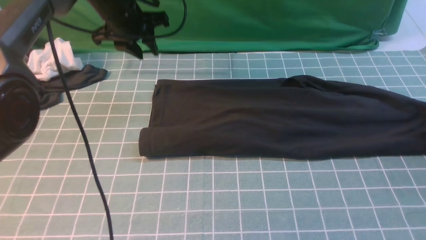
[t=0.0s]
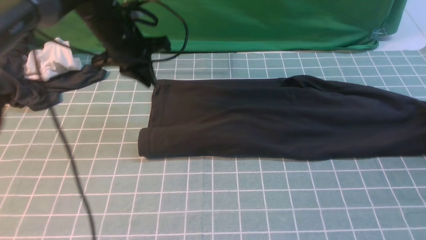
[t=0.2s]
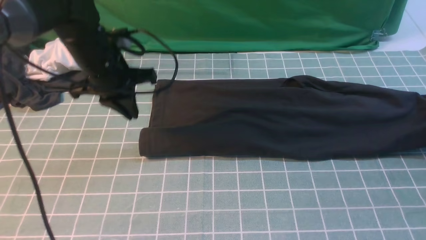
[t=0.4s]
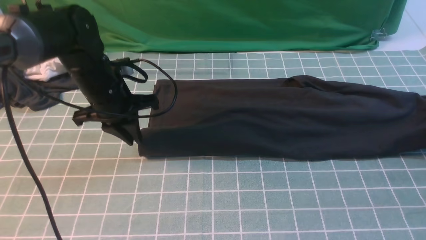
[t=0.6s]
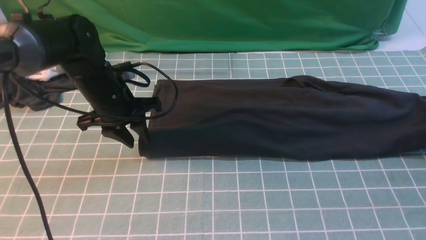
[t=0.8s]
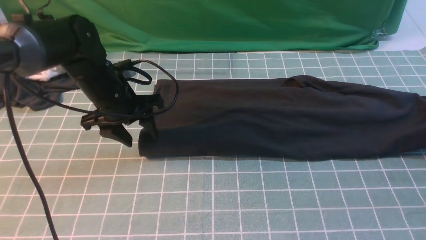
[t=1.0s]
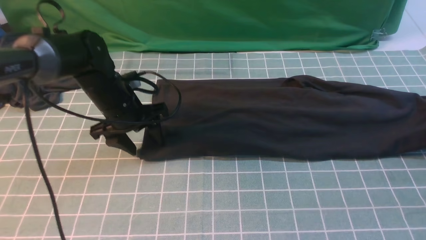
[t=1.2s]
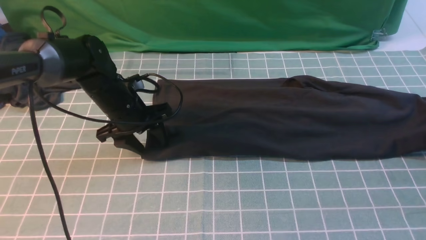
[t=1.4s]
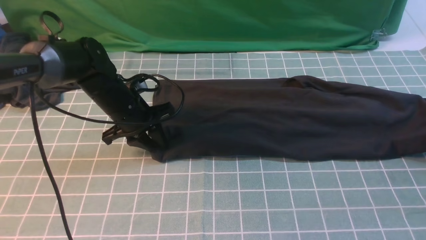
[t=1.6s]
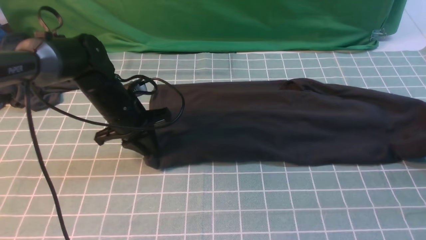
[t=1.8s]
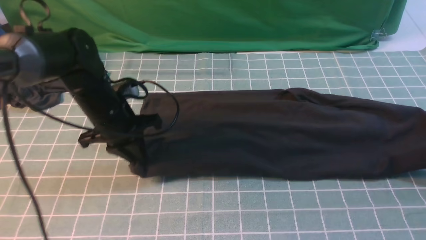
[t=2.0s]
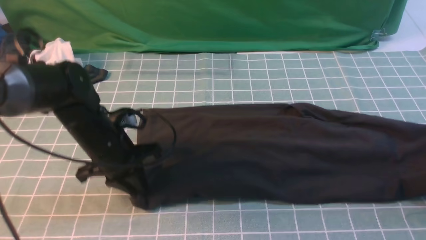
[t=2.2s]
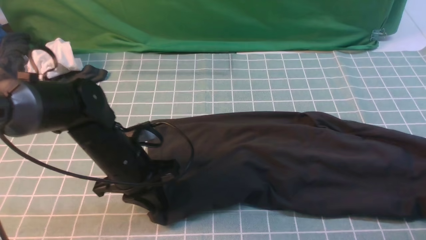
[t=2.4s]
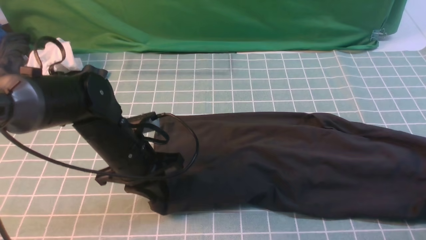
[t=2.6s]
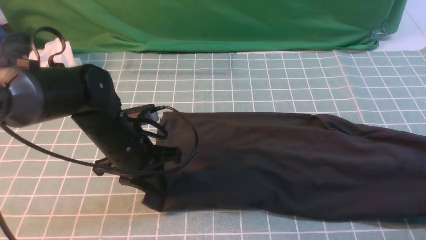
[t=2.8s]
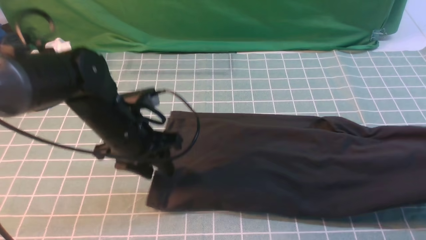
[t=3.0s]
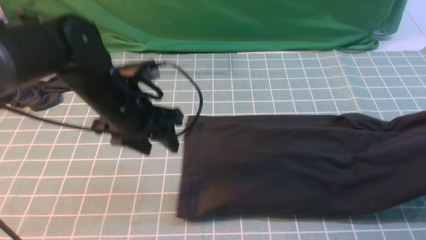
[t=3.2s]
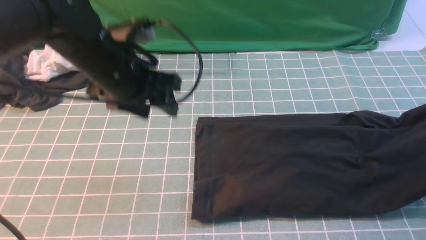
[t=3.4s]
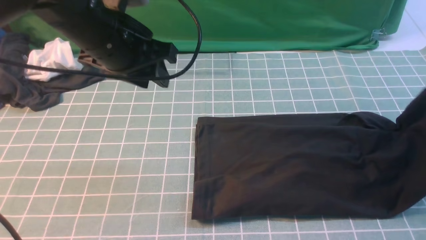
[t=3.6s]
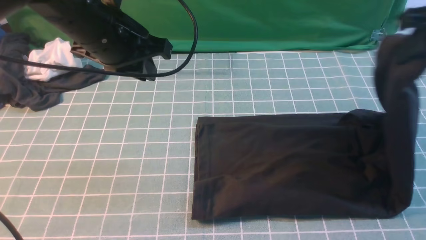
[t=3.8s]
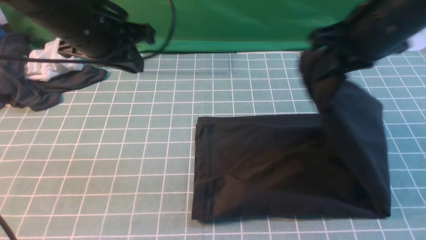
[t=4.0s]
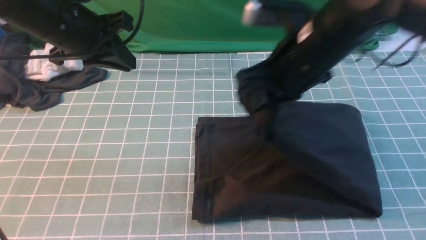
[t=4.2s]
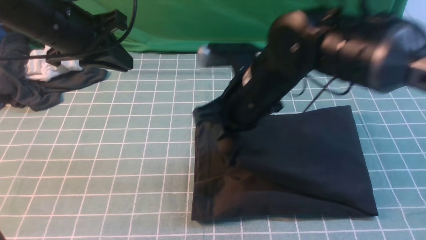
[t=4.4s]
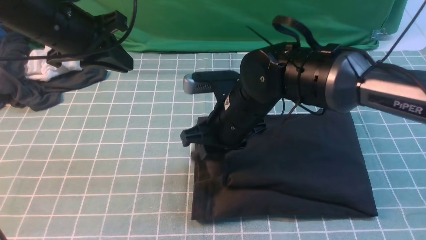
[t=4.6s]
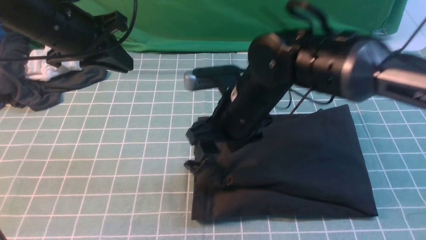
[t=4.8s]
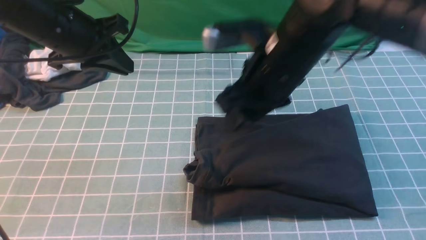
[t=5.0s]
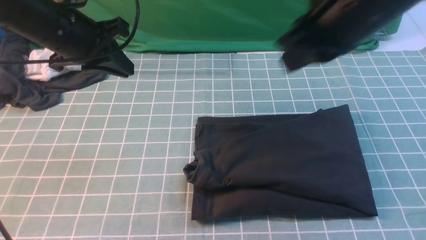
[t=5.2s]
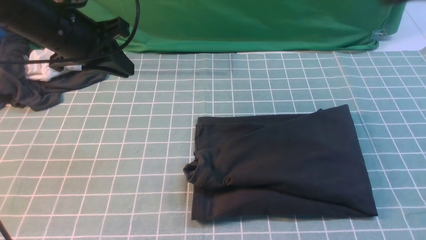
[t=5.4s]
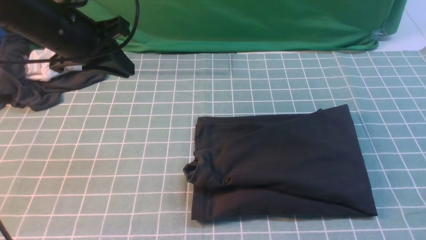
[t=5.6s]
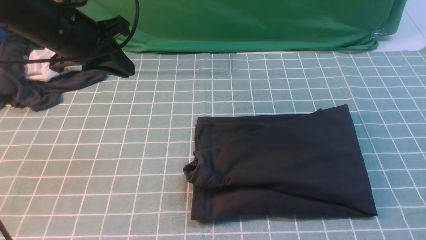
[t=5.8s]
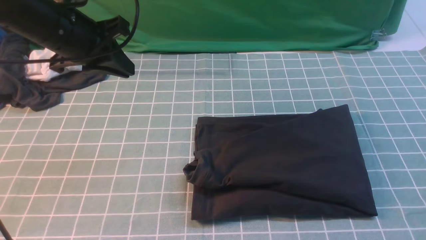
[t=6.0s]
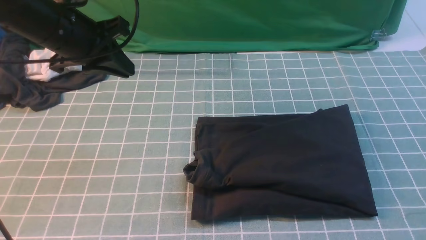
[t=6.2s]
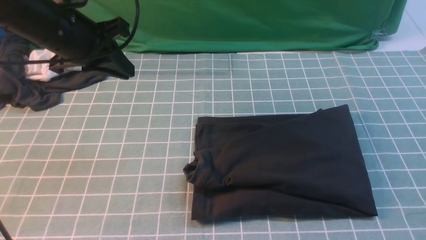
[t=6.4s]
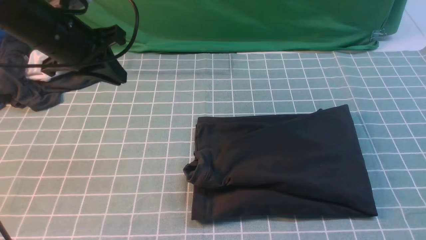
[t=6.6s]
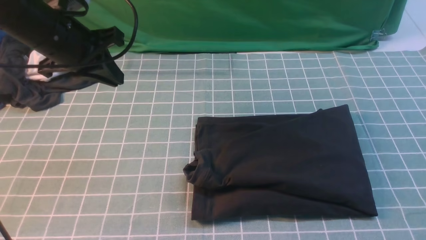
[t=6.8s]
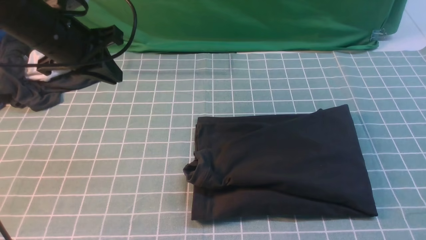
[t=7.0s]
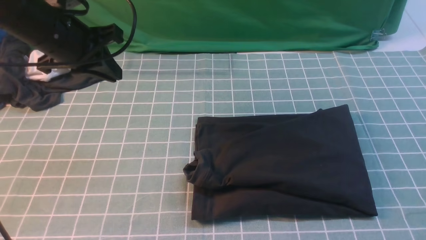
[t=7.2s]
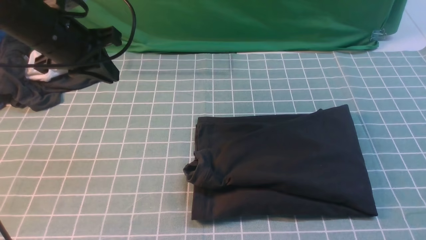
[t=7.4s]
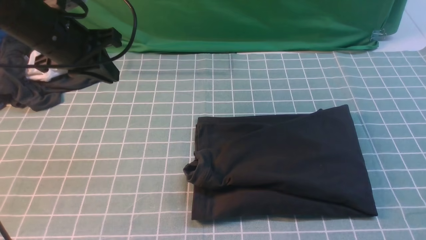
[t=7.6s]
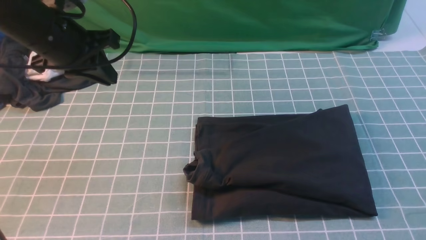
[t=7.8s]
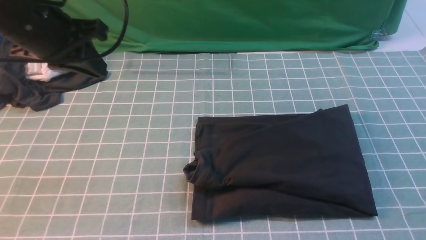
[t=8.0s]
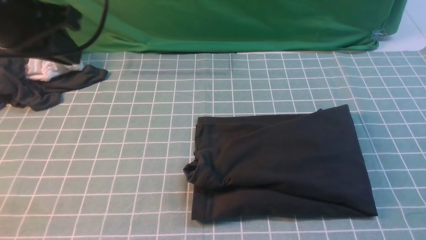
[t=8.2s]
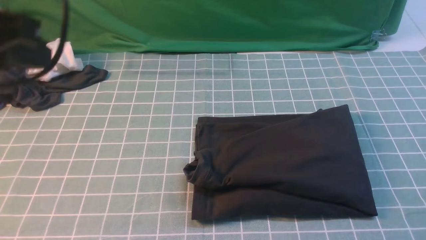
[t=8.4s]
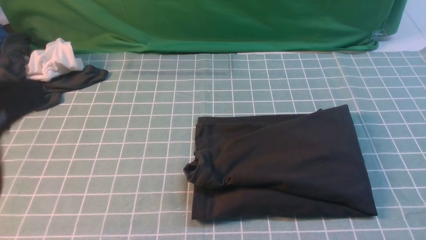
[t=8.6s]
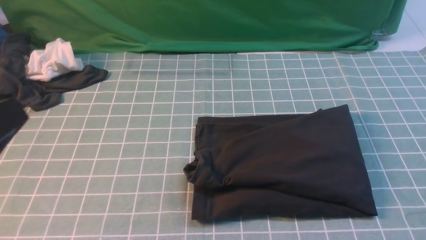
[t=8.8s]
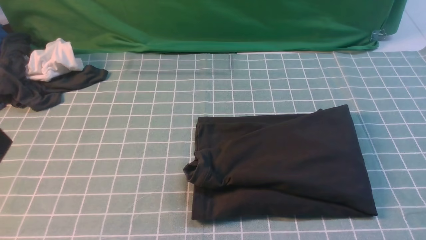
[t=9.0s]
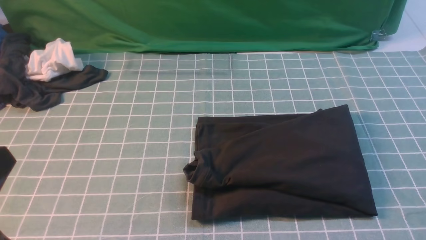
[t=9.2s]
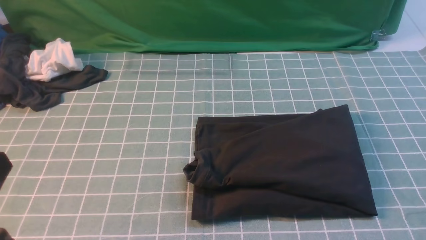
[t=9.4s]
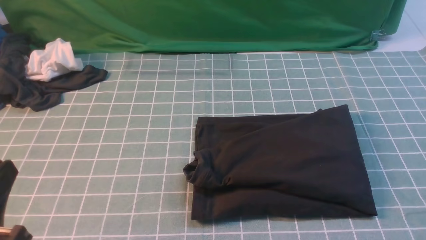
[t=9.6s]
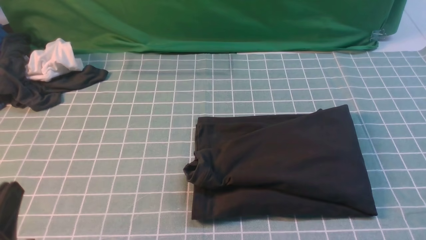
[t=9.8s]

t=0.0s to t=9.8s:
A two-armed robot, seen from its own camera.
Step, t=0.0s to t=2.6s: use the right arm to clamp the right edge of the fabric.
Step, t=3.0s to t=5.0s: use the right arm to drag the right edge of the fabric to the left and folds it over the left edge.
t=0.0s to t=1.4s: The left gripper shifts about 15 cm downward and backward, and opens its fingers.
t=1.4s to t=2.8s: The grippers both shift backward by about 10 cm. The left gripper closes its fingers.
t=2.8s to t=4.2s: The right gripper travels to the left by about 35 cm; the left gripper heads upward, to the left and forward, covering about 15 cm, and closes up.
t=4.2s to t=5.6s: The right gripper heads backward, upward and to the right, covering roughly 35 cm, and opens and closes again.
t=7.0s to t=8.4s: The left gripper moves backward and upward, about 20 cm.
t=8.4s to t=9.8s: The left gripper moves downward and backward, some 25 cm.

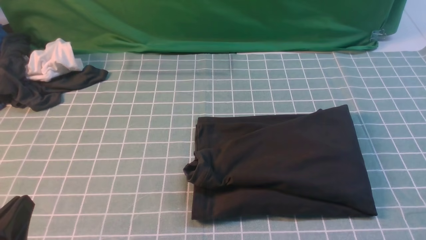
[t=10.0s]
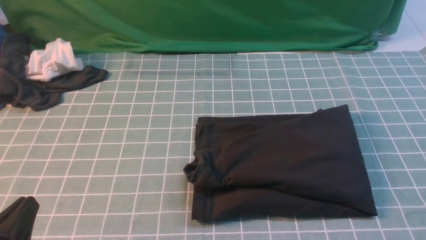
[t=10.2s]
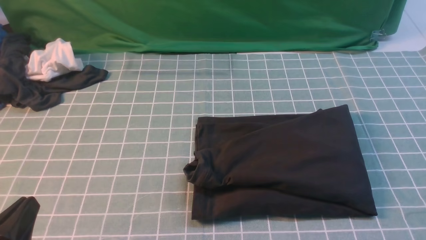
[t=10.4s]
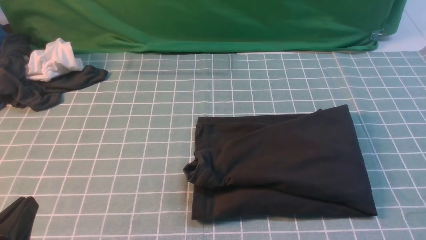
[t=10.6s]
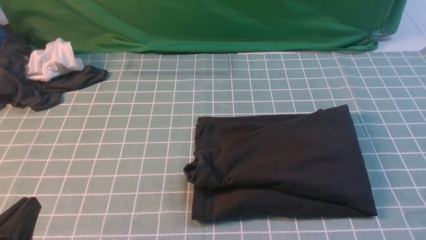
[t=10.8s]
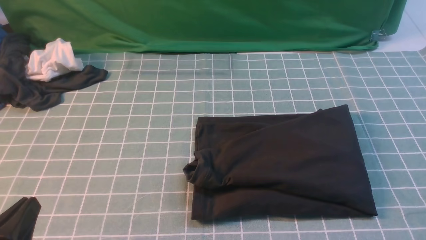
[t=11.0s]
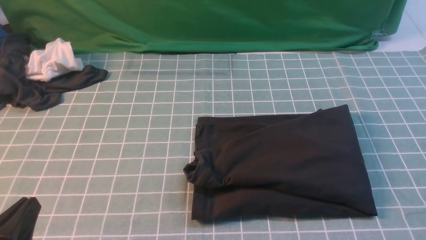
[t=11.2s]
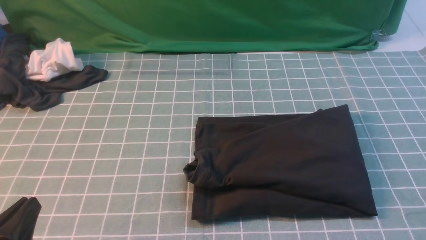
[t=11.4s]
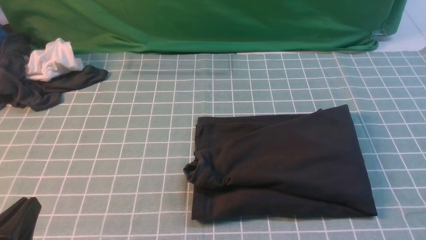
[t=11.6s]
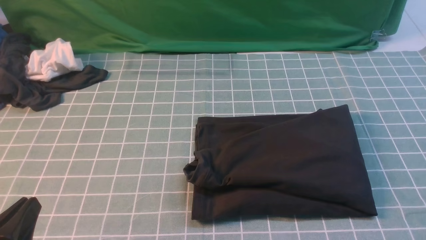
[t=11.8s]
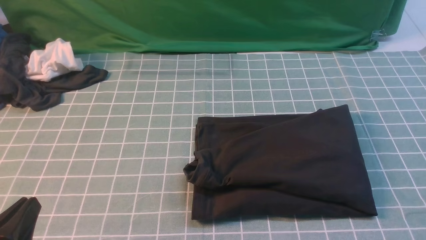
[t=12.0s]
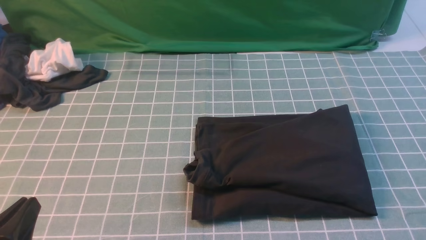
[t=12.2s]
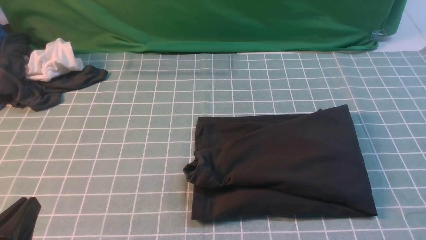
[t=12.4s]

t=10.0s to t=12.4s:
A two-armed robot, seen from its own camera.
t=10.0s to t=12.4s: The two grippers keep their place.

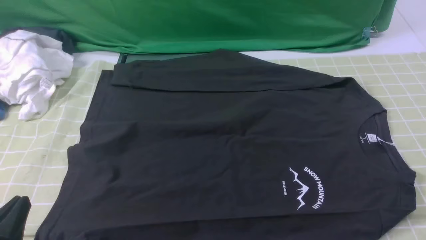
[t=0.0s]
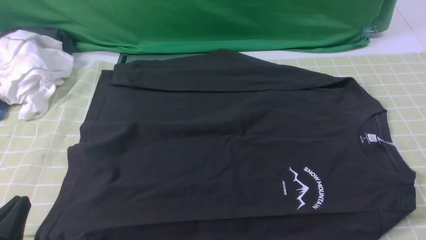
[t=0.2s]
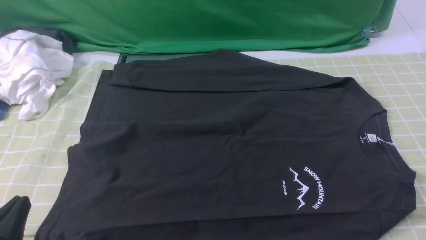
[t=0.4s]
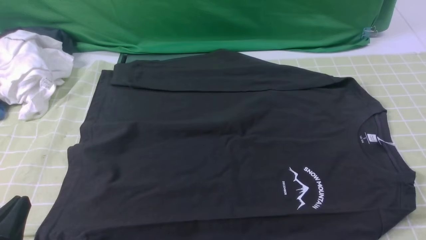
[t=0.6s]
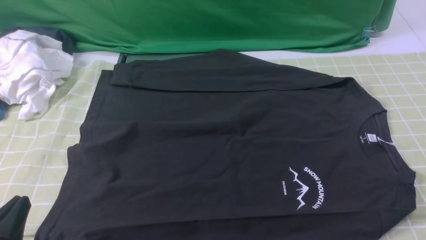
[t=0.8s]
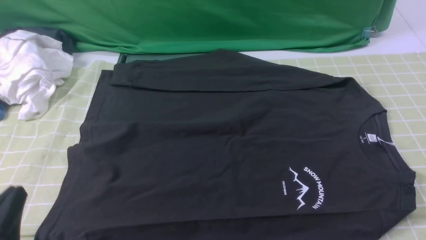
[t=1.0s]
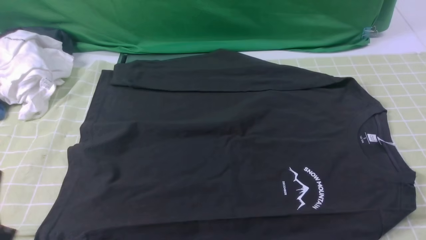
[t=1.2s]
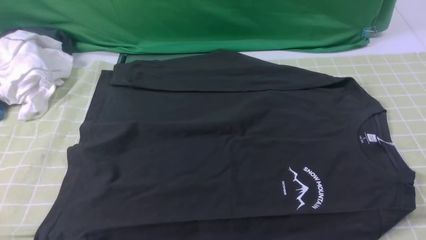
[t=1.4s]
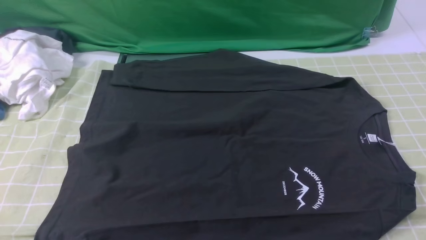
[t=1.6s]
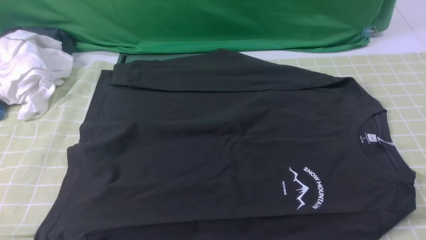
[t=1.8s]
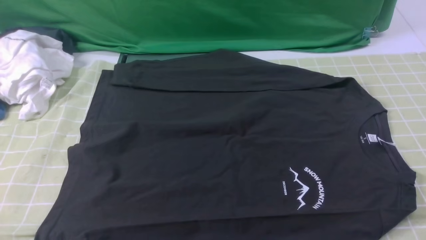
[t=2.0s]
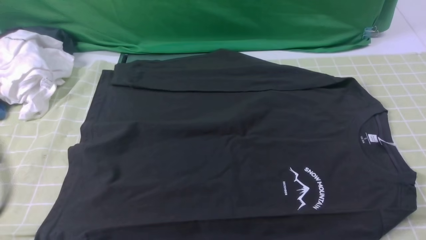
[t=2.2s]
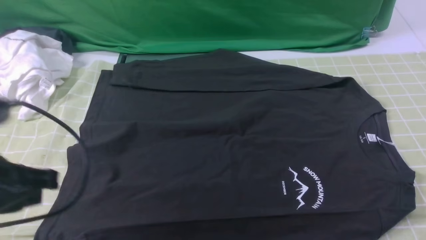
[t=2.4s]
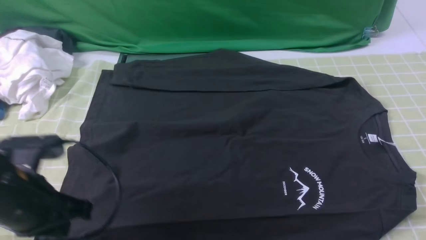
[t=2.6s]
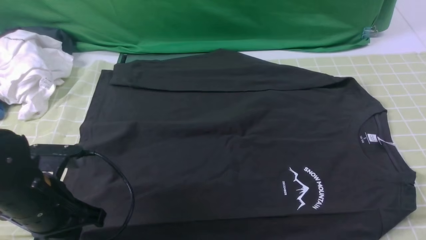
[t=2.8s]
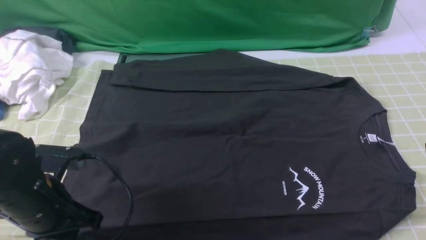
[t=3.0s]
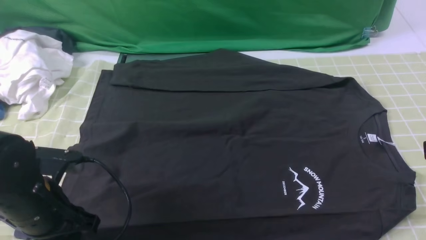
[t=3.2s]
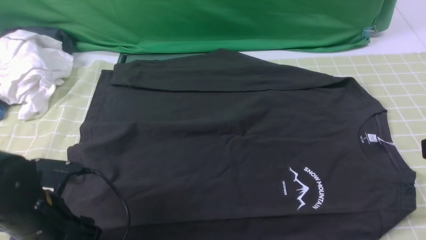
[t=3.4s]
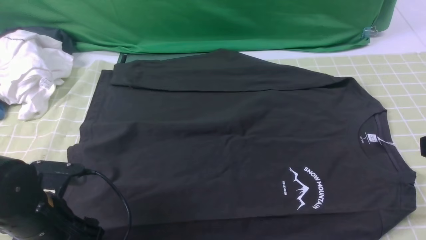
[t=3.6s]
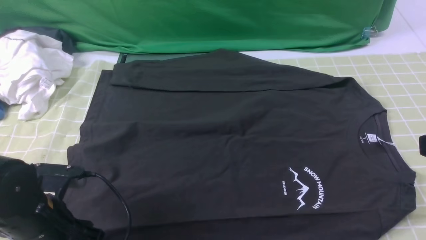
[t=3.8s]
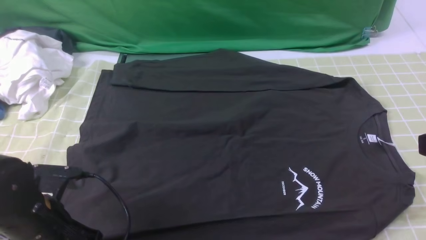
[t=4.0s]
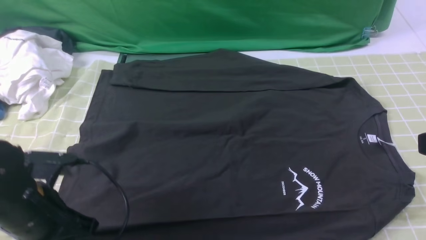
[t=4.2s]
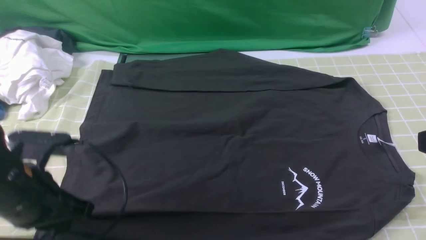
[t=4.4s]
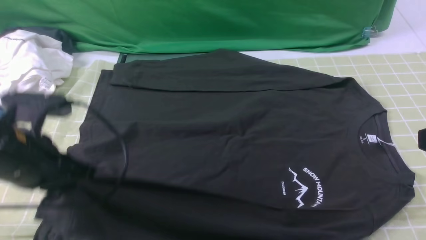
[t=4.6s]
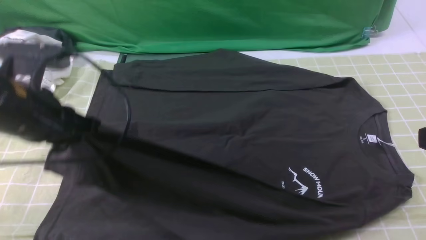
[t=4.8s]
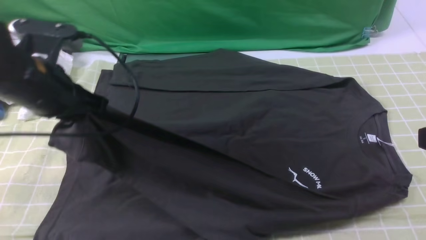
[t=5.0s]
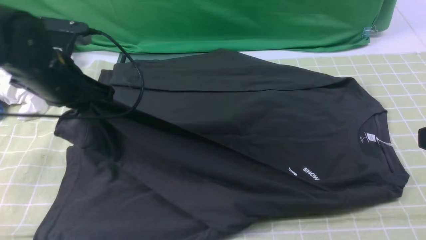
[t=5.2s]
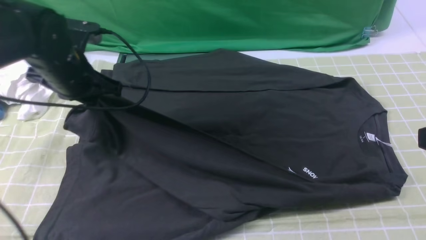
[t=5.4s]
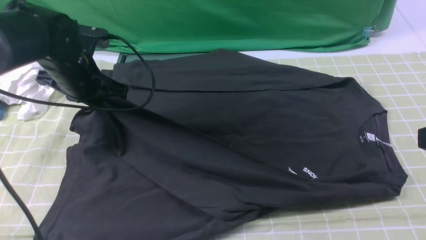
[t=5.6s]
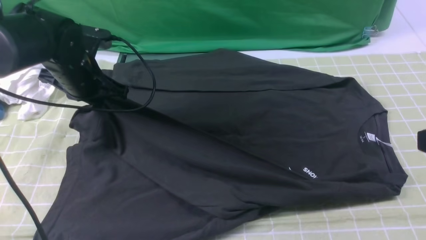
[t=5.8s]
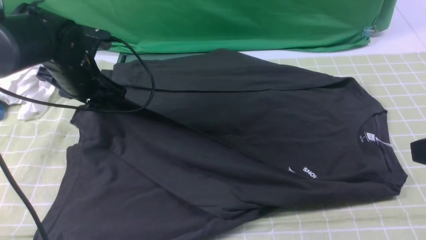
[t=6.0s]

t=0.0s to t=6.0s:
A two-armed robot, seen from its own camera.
Step, t=0.0s to t=3.8s: use the left arm to clamp the cuff closest to it.
t=0.0s to t=1.6s: The left gripper heads upward, covering some 5 cm.
t=1.6s to t=3.0s: The left gripper travels forward and downward by about 15 cm.
t=3.0s to t=4.4s: The left gripper opens, then closes once more.
t=4.4s to t=6.0s: The left gripper moves forward, roughly 20 cm, and opens.
